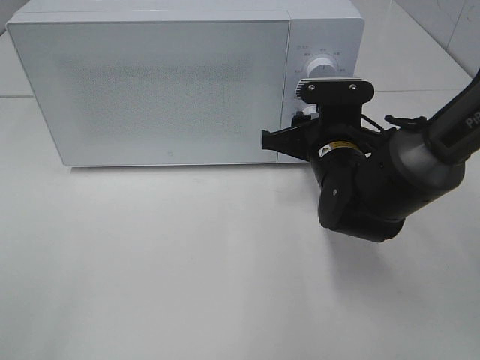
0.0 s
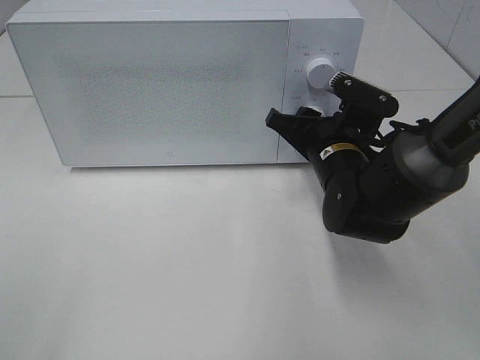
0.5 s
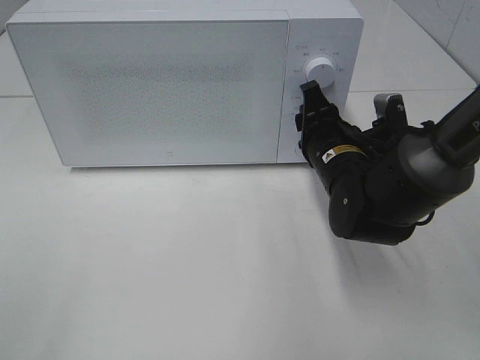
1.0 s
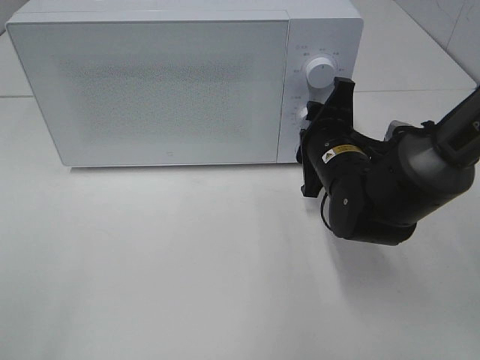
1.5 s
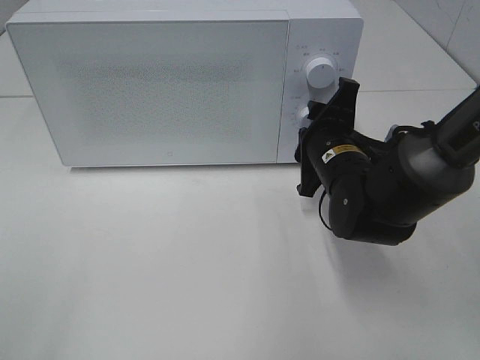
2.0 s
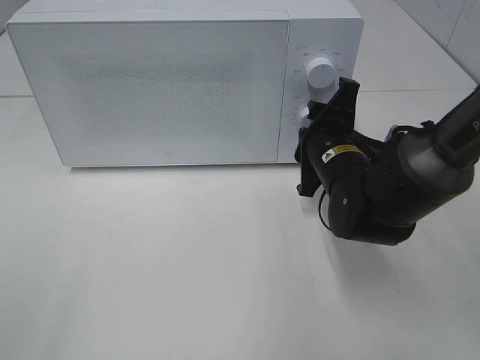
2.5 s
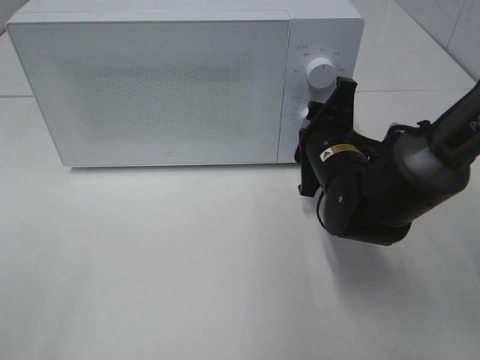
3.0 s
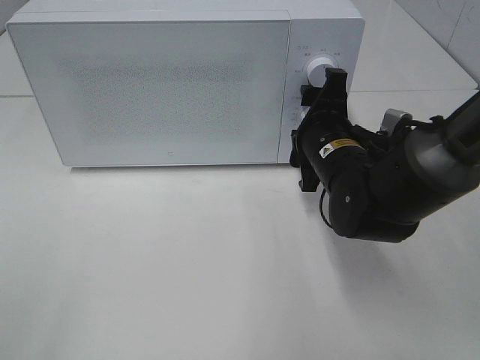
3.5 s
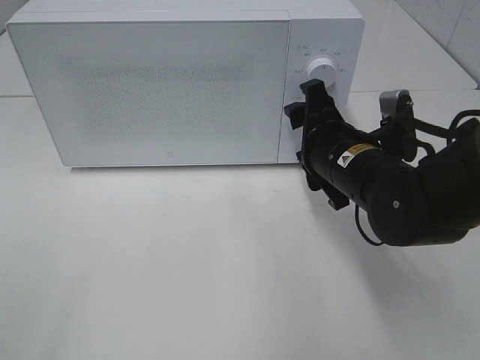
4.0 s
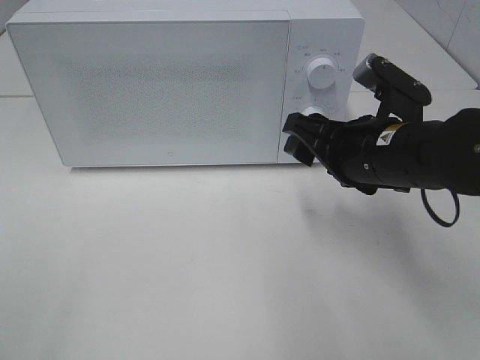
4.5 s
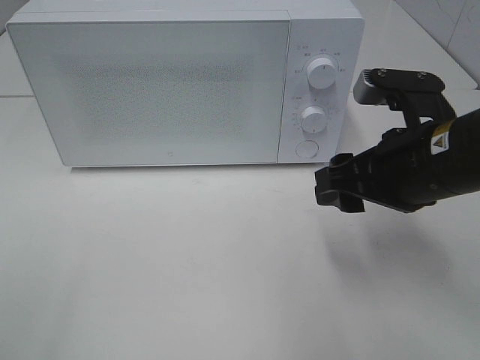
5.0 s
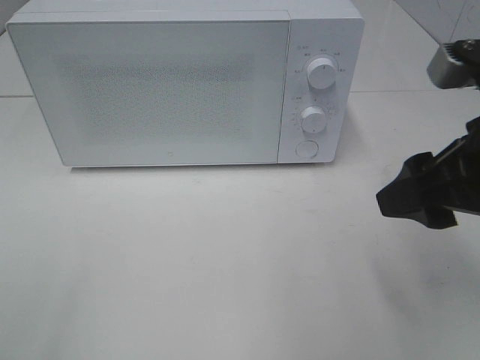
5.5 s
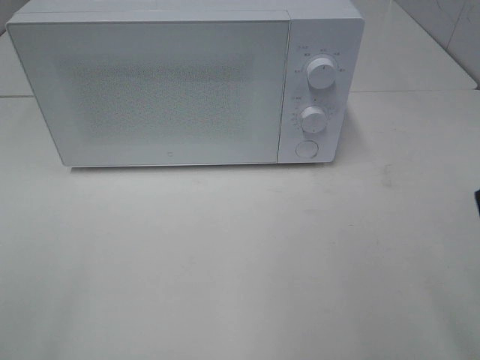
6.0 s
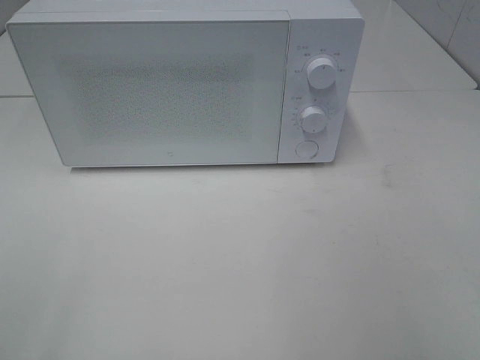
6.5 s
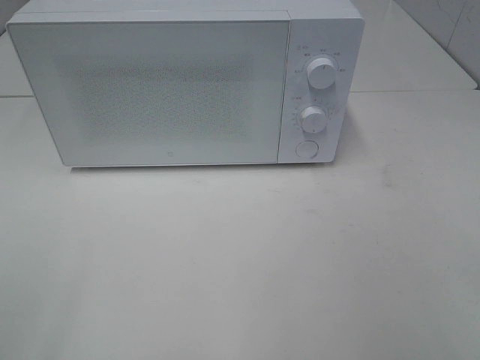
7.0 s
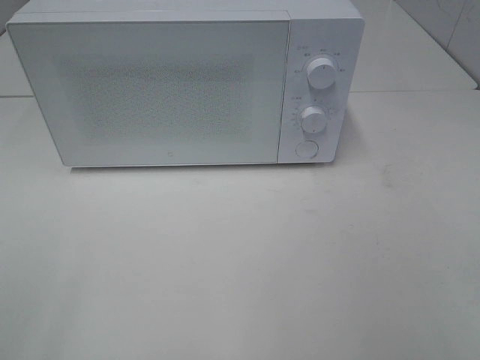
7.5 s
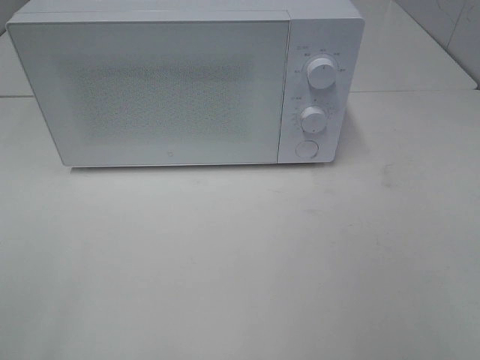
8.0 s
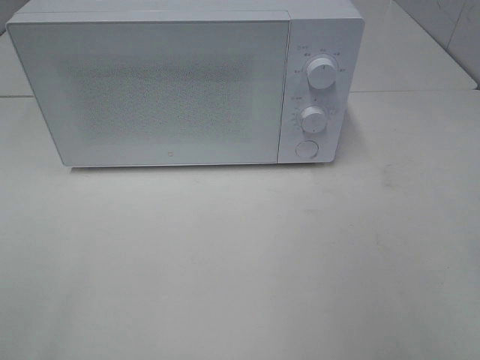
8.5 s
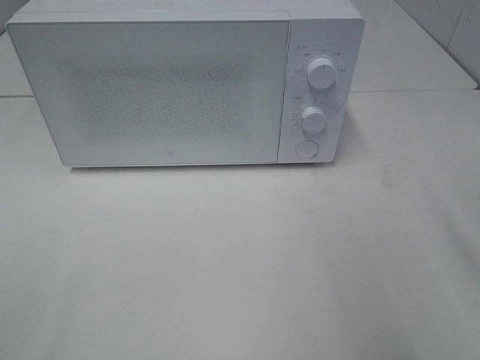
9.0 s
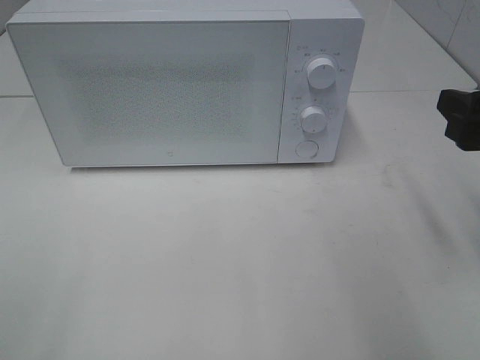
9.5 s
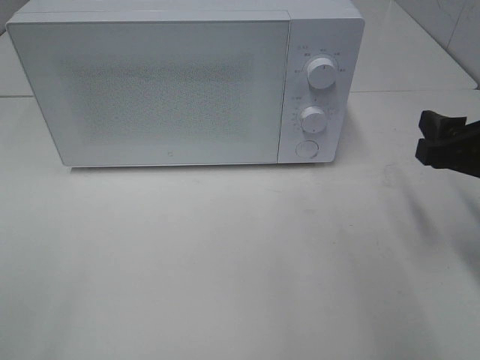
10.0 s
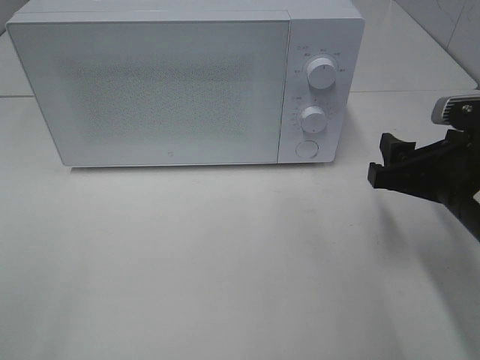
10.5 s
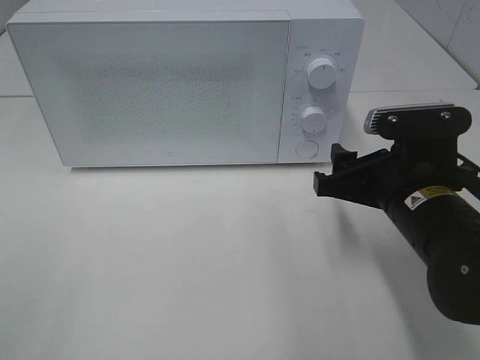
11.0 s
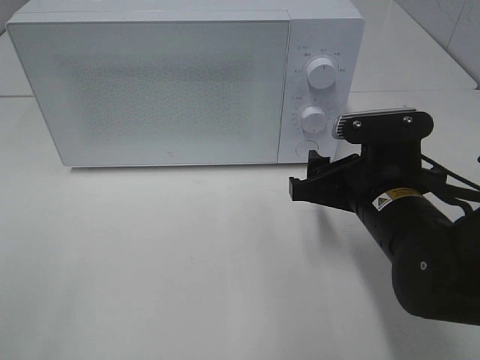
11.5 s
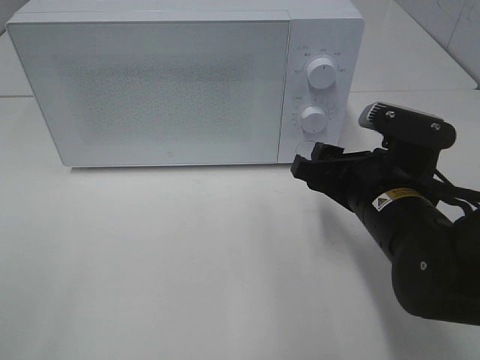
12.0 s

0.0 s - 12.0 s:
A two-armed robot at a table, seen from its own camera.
Task of the whole recording: Heat the burger.
Step, 0.0 s - 3.5 s: Right hand: twist timer button.
4.0 s - 6.0 s: The right gripper goes some 30 cm backward, upward and to the right.
8.0 s - 10.0 s: The right gripper shifts some 25 cm forward and downward.
10.0 s - 12.0 s: The right gripper goes some 10 cm to the left.

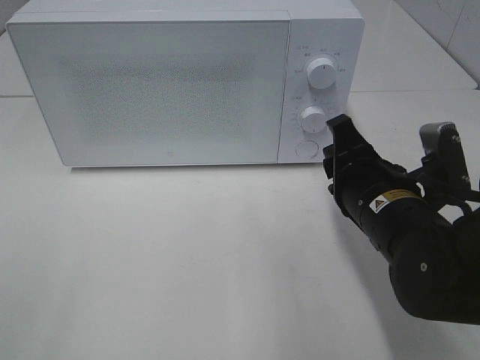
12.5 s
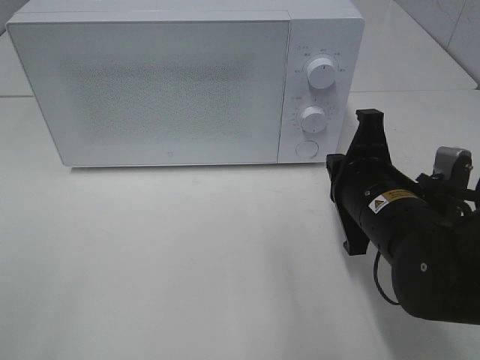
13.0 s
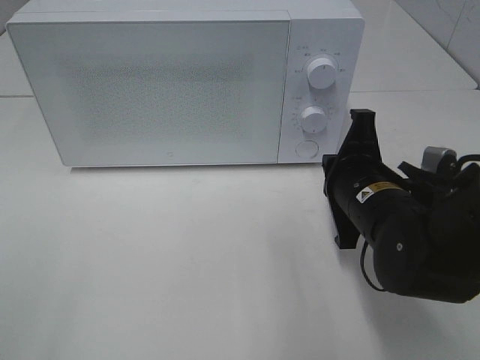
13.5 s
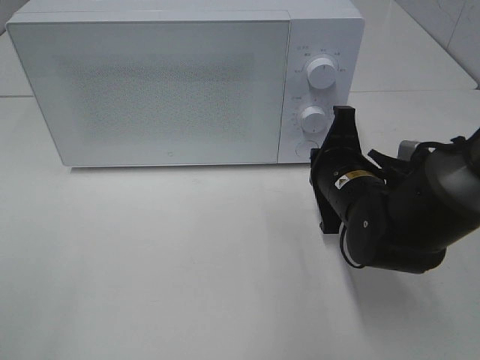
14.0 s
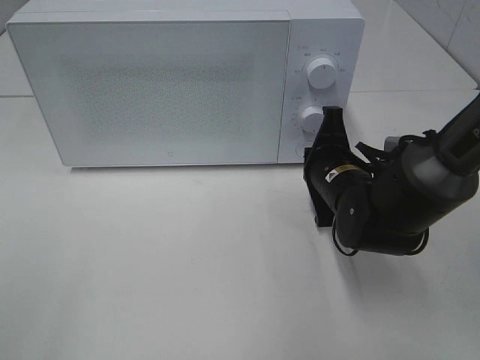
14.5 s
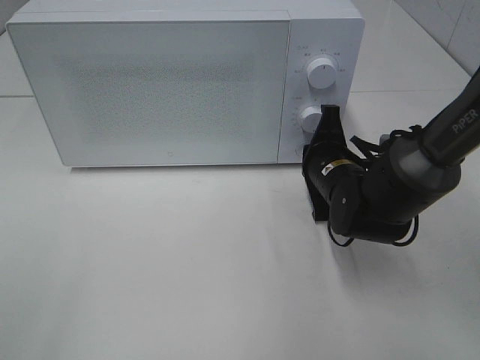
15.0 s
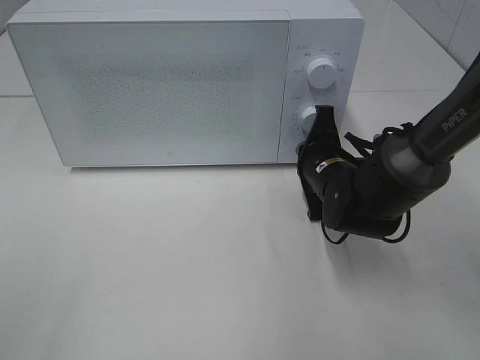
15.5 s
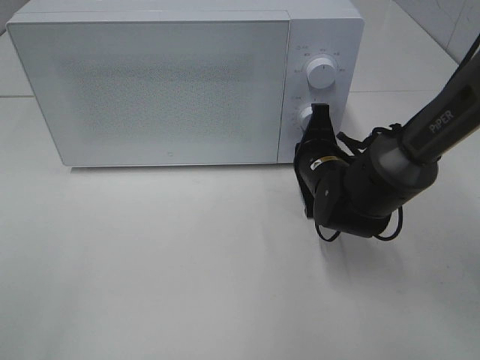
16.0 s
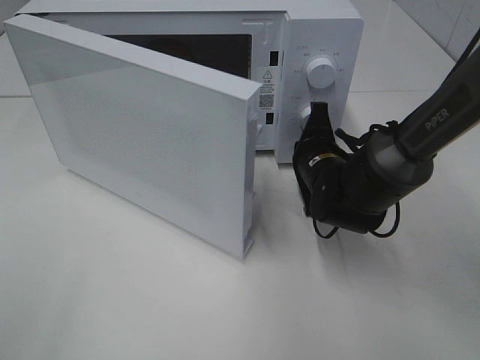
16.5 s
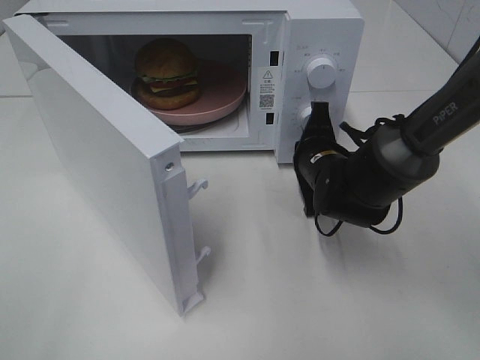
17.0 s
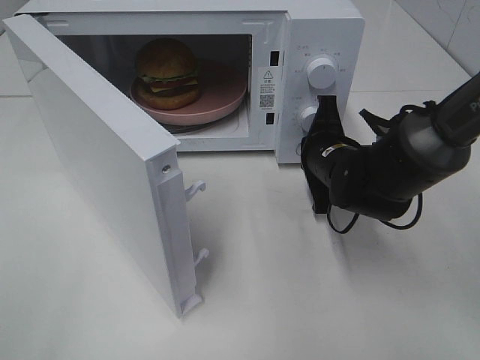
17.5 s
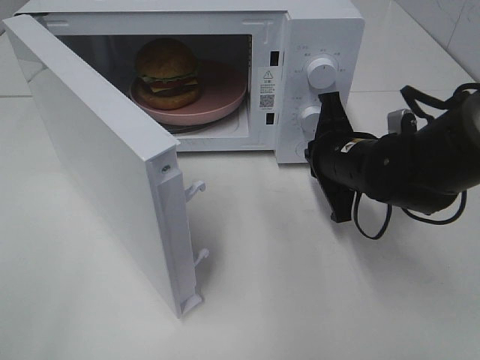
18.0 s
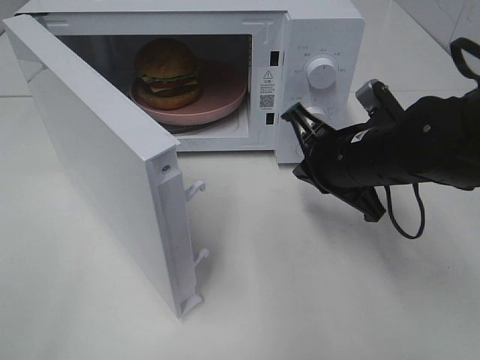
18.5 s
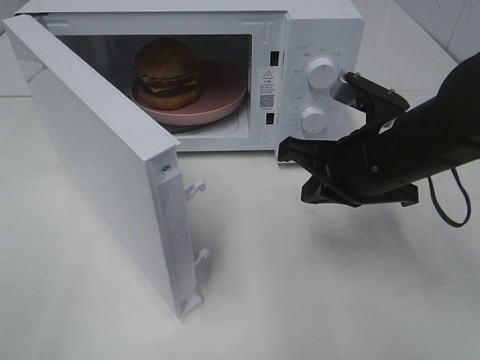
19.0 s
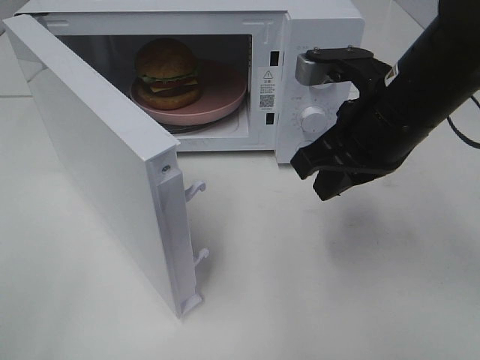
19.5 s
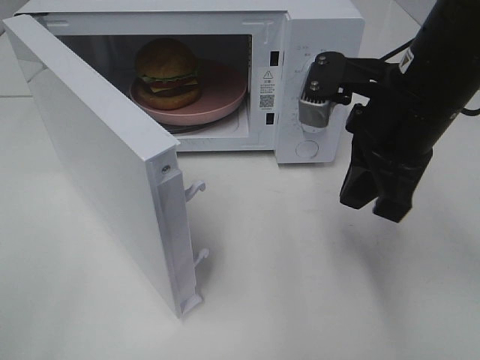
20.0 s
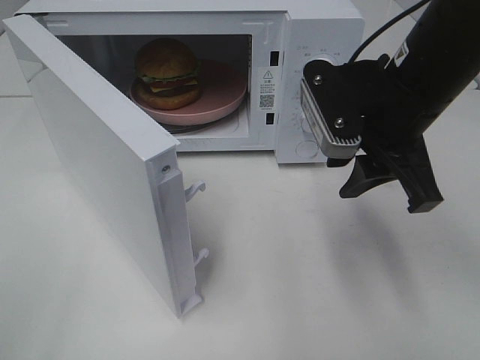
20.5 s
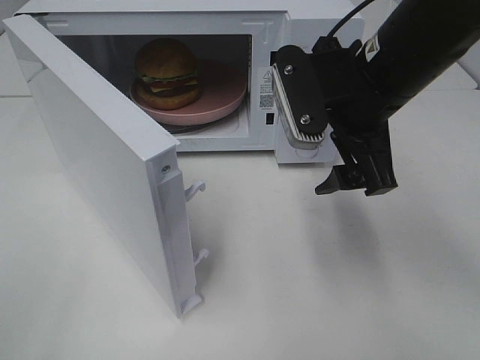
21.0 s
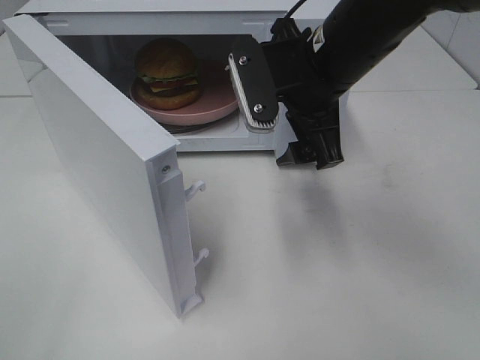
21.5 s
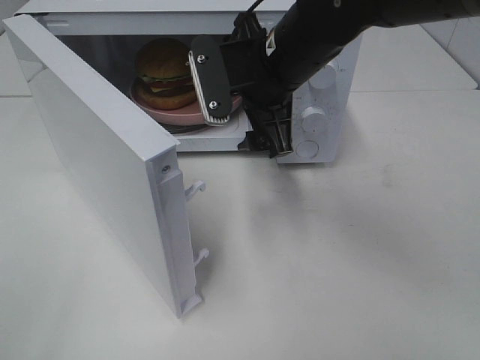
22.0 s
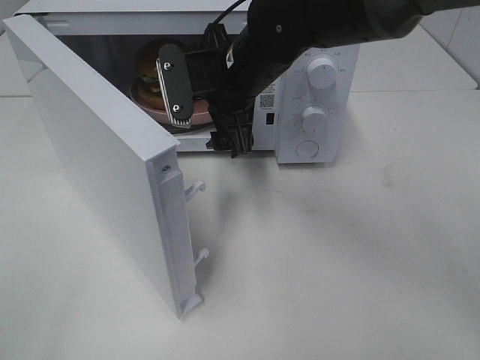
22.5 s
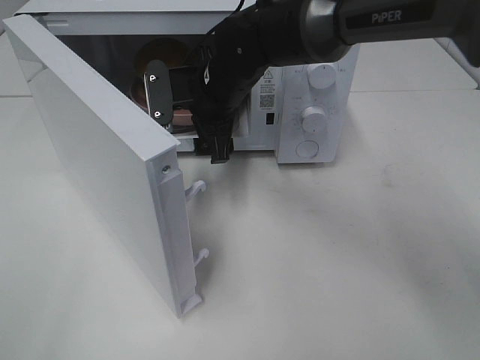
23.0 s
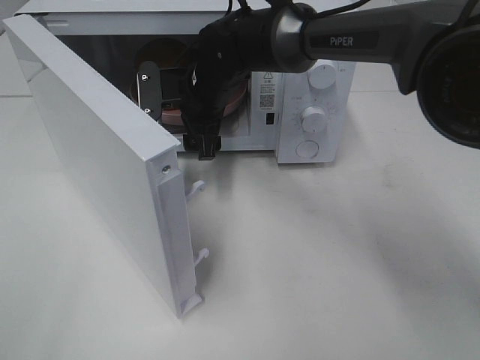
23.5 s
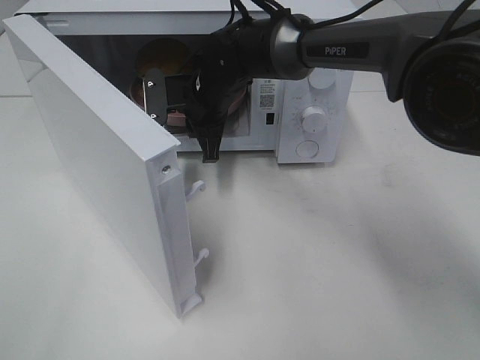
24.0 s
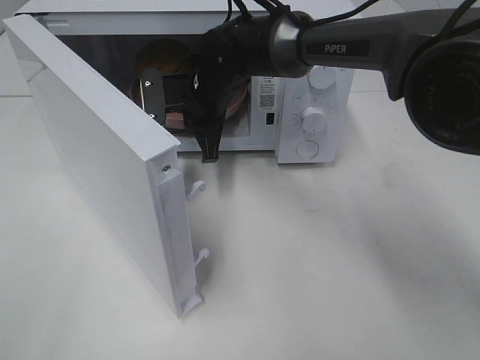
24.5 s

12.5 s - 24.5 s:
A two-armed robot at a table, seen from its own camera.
Task of the whole recording: Heat the burger.
Step, 12.5 s - 18.0 s: Right hand: press the switch.
Step, 18.5 s - 24.0 s: Right hand: grab the plate with the hamburger.
12.5 s - 14.5 s: The right gripper travels forward by approximately 10 cm, and closes.
16.5 s - 18.5 s: The right gripper goes some 10 cm upward and backward.
18.5 s - 20.5 s: The right gripper travels upward by roughly 10 cm, and opens its fingers.
20.5 s - 22.5 s: The right gripper moves to the left and forward, some 15 cm, and opens its fingers.
22.5 s - 24.5 s: The right gripper heads forward and downward, covering roughly 10 cm, and closes up.

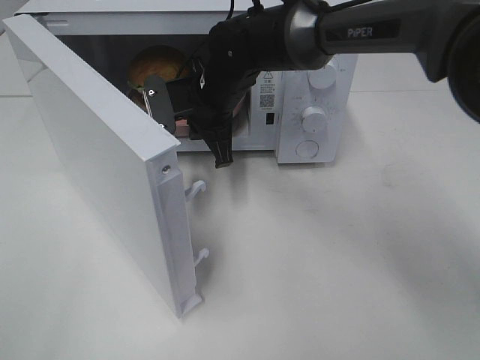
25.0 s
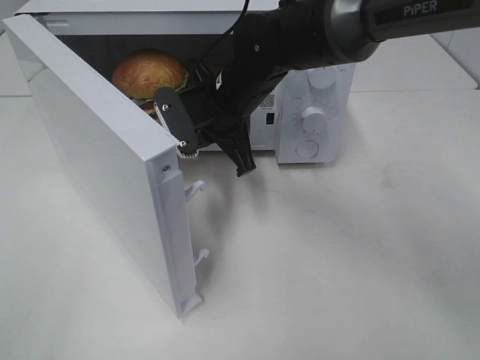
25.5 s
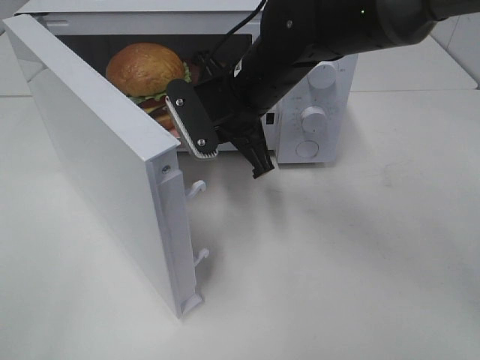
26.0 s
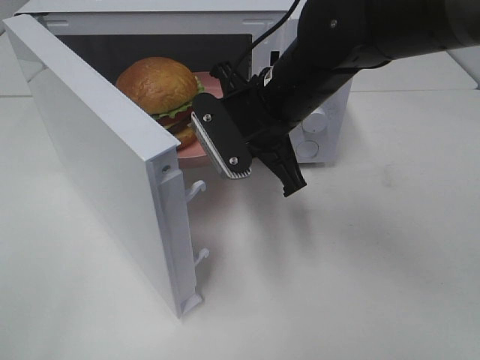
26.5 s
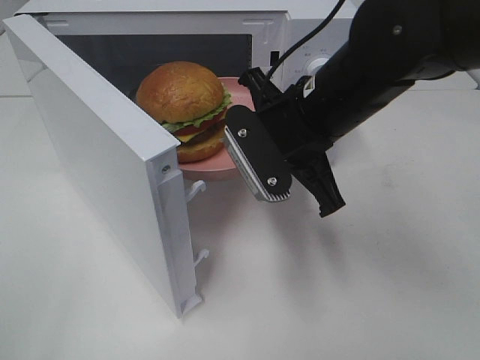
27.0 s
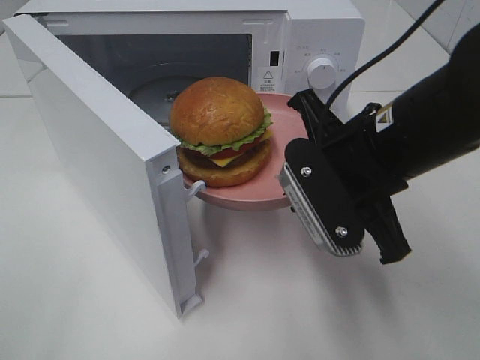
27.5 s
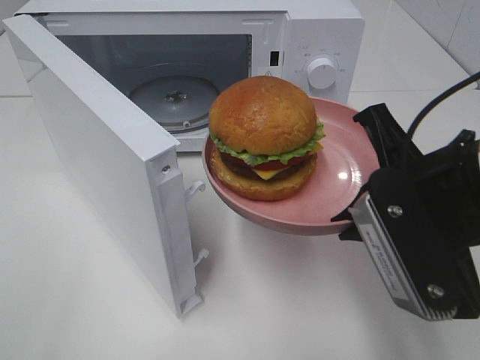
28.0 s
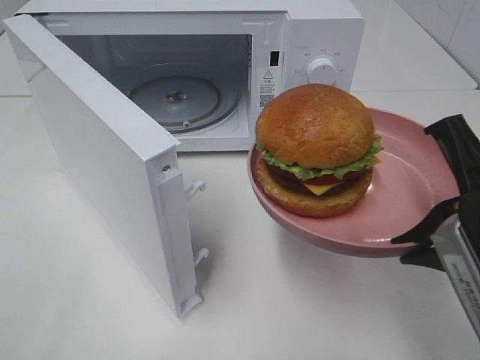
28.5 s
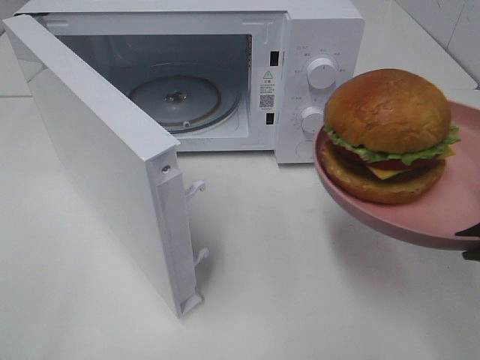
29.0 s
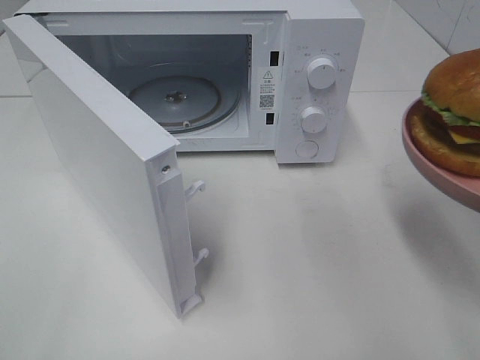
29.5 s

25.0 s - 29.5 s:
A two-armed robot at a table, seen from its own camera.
Task of the whole recording: Heat the burger.
25.0 s - 27.0 s: The right gripper shifts approximately 15 cm backward, to the right and upward.
27.0 s - 29.5 s: The right gripper heads to the right and backward, covering about 25 cm.
